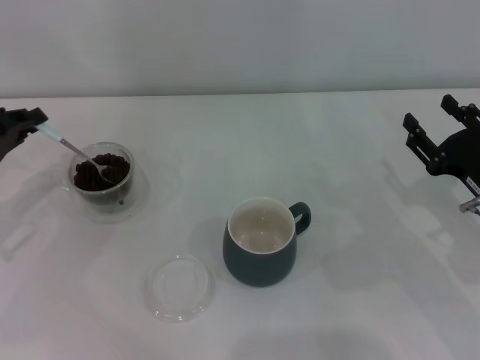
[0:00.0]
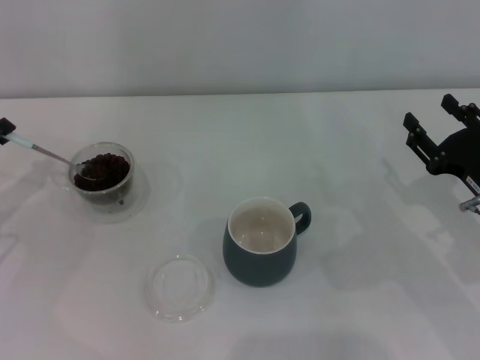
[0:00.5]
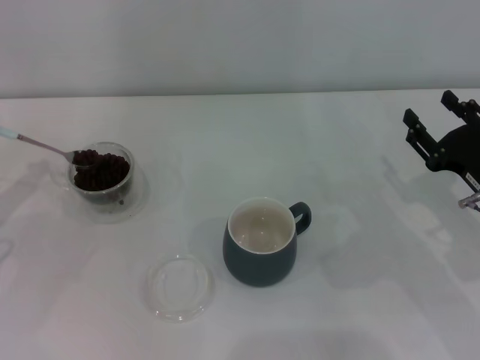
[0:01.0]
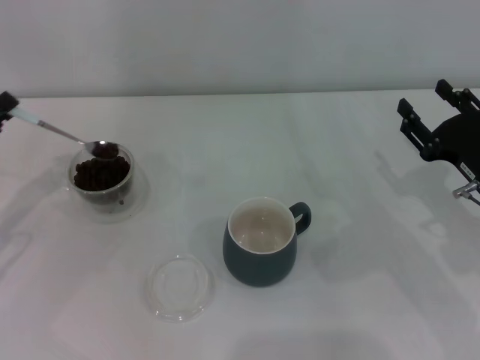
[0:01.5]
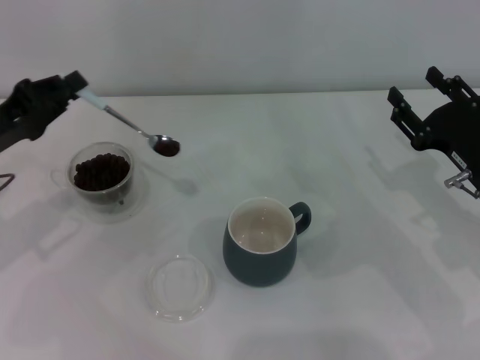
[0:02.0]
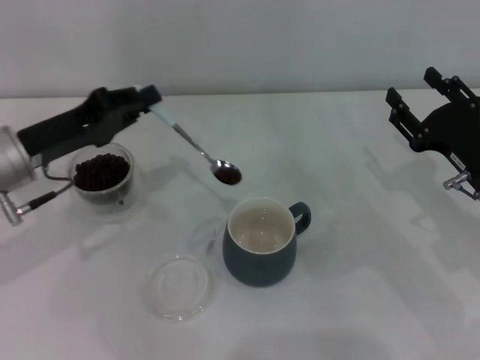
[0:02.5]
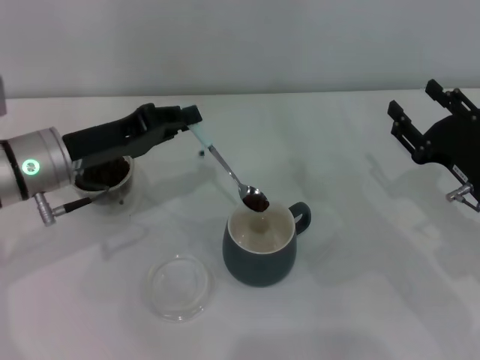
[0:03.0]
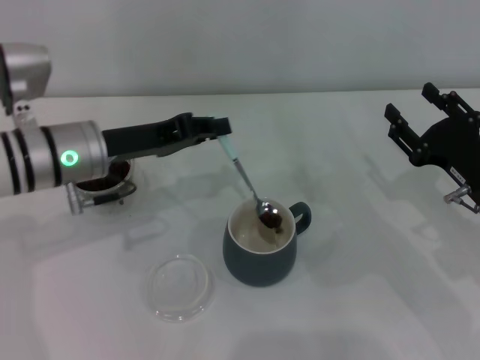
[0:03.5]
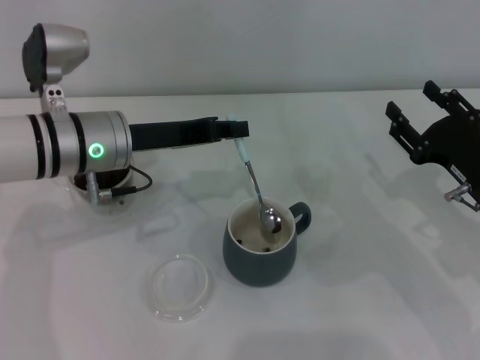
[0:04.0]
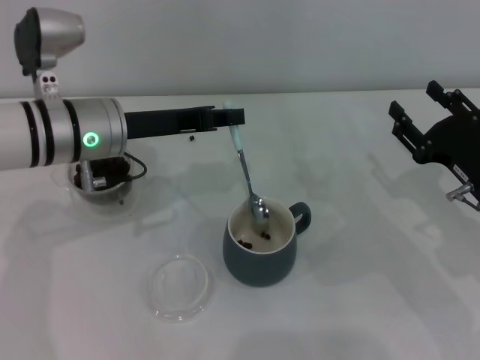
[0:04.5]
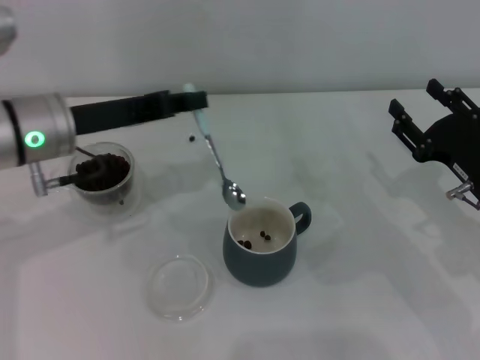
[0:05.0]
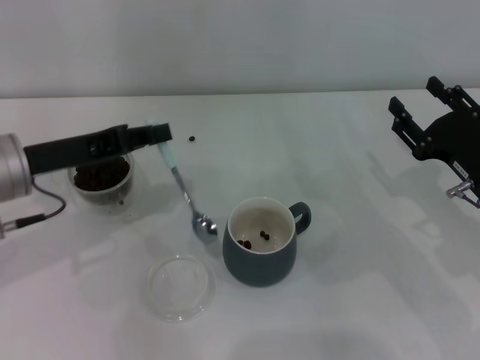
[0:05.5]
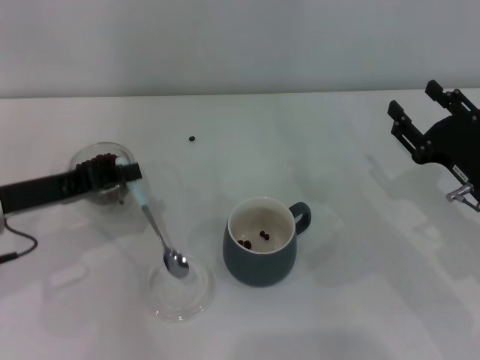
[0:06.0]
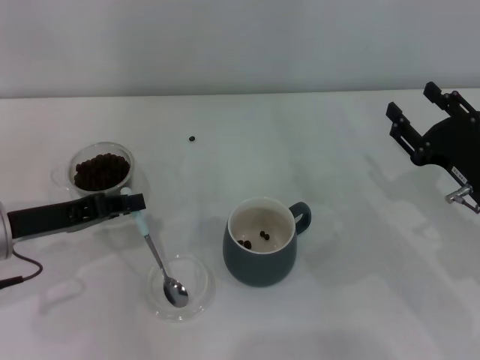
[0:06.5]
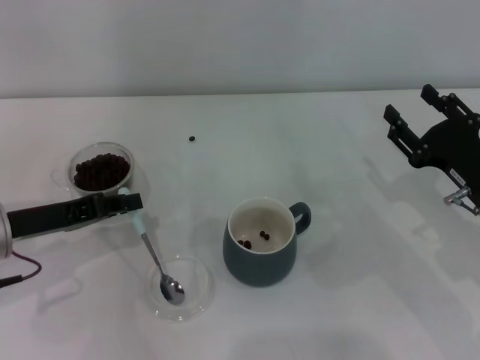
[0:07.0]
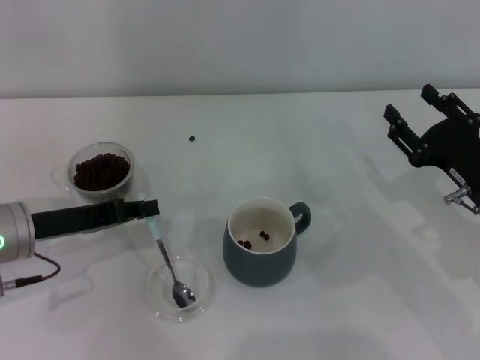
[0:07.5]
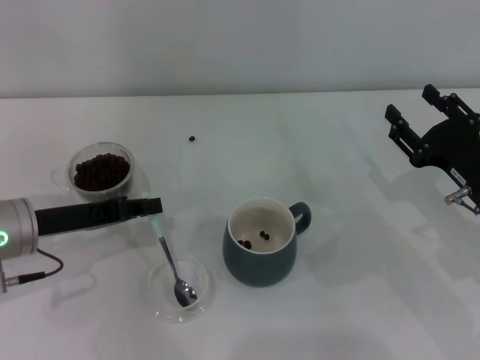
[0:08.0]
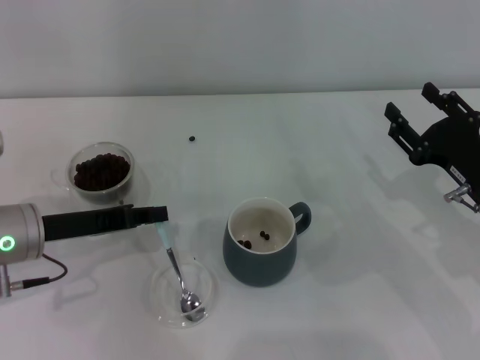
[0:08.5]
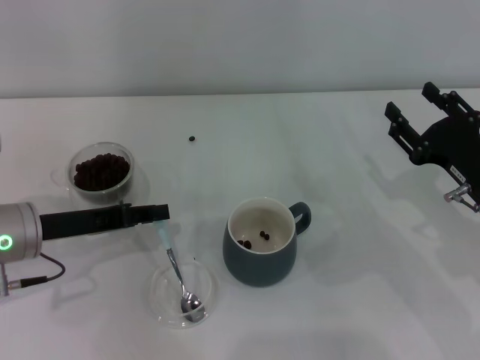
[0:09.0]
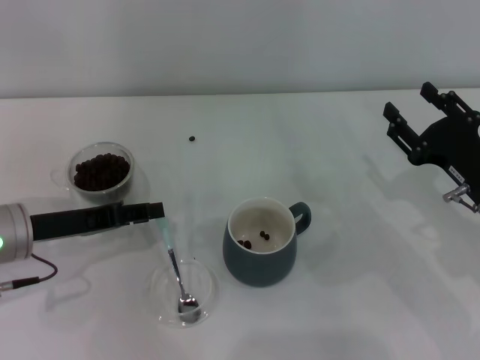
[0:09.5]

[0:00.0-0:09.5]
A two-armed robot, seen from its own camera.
Task of the whole recording: Use a blue spoon to take out the coffee beans from the glass and pour them into the gray cup.
Step, 0:00.0 to 0:04.5: Scoop a spoonful of beans into the cup with the right gripper.
0:00.0 to 0:02.0: The grippers make only small movements.
0:02.0 to 0:04.0: The left gripper is displaced to the right by some 15 cm.
0:04.0 to 0:05.5: The left gripper travels to the left by approximately 10 cm.
0:05.5 to 0:07.5: The left gripper shifts some 5 cm downward.
0:07.5 to 0:09.5: The left gripper opens up.

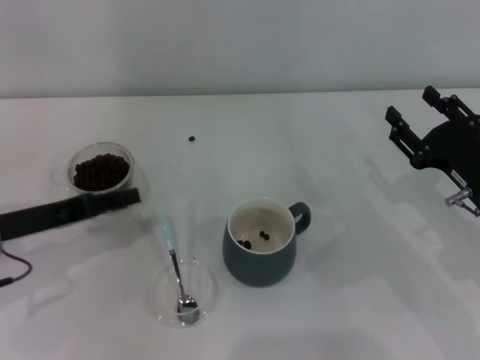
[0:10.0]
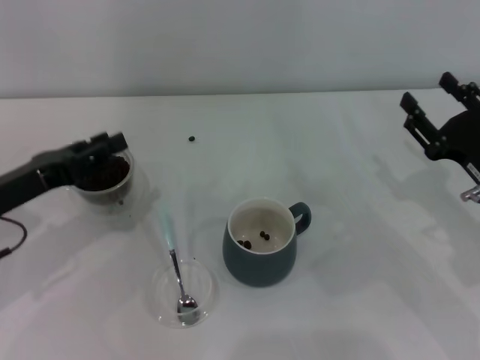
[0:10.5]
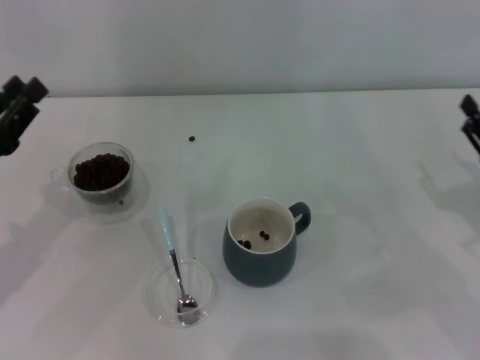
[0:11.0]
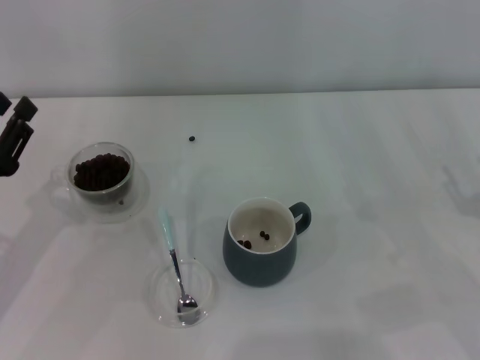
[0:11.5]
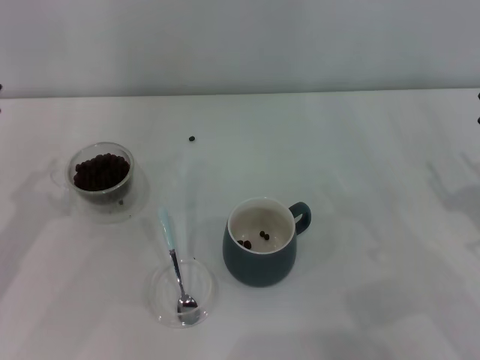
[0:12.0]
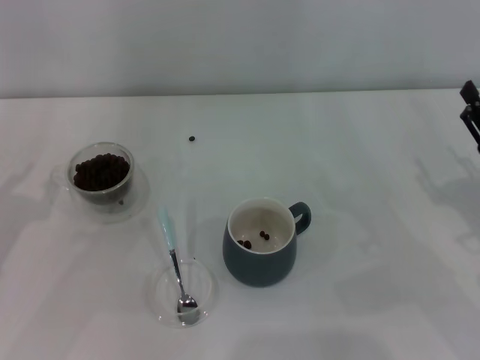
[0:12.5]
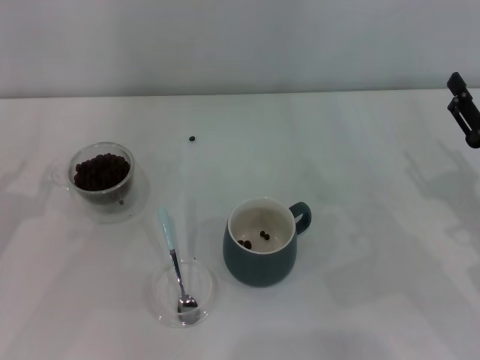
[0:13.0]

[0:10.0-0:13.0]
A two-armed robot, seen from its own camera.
Task of the whole recording: Use a blue spoon to take out the coffee beans from the glass and pour them into the gray cup.
0:10.0 to 0:11.5: The right gripper travels backward and to the right by approximately 10 cm.
0:11.5 to 0:13.0: The grippers stay close to where they were, moving slightly.

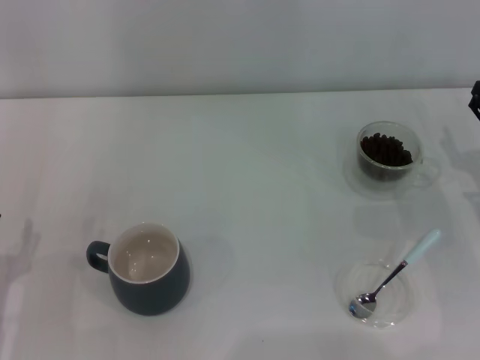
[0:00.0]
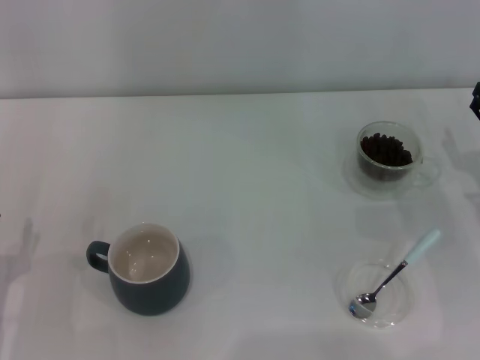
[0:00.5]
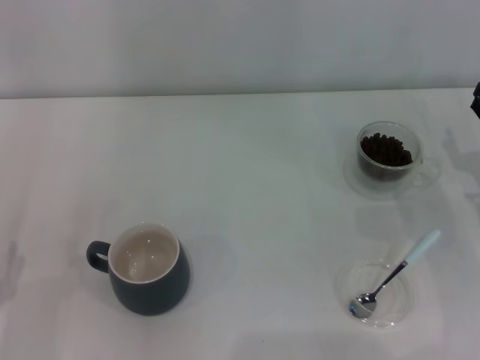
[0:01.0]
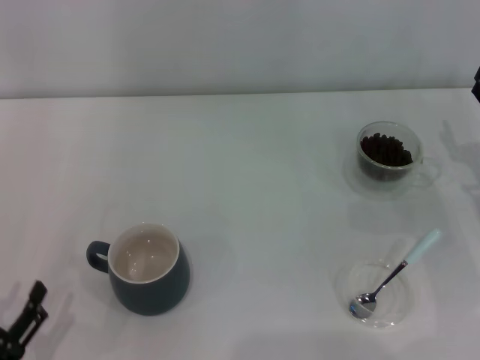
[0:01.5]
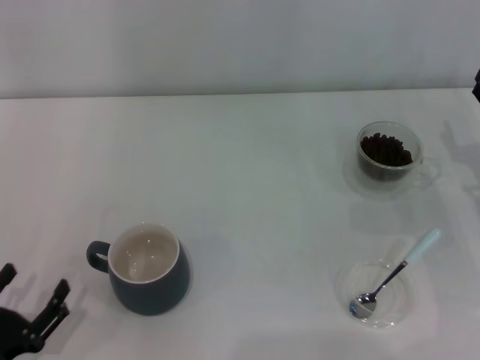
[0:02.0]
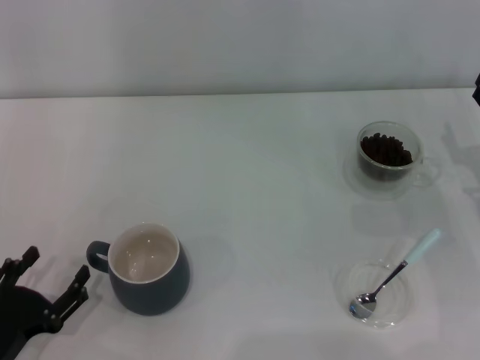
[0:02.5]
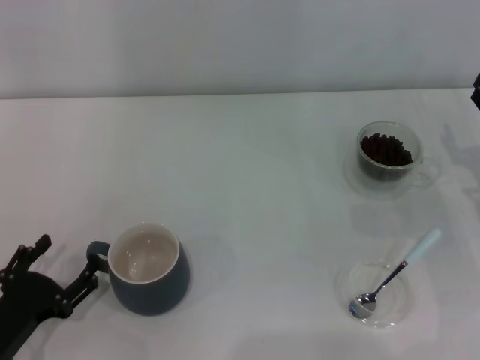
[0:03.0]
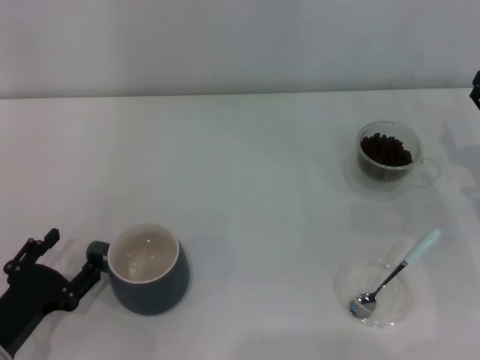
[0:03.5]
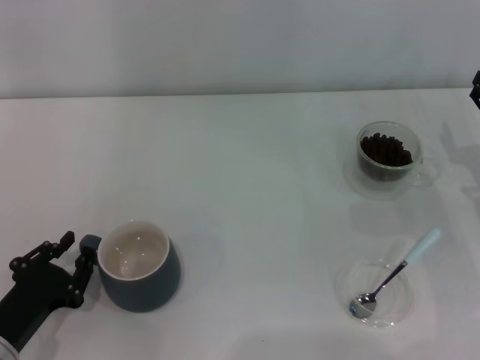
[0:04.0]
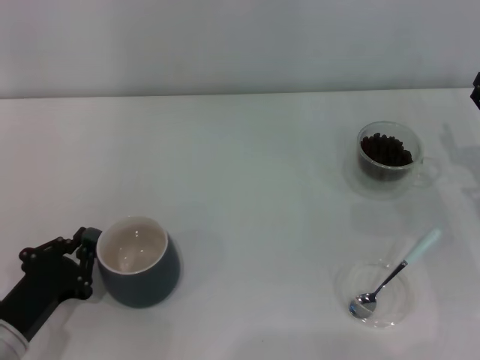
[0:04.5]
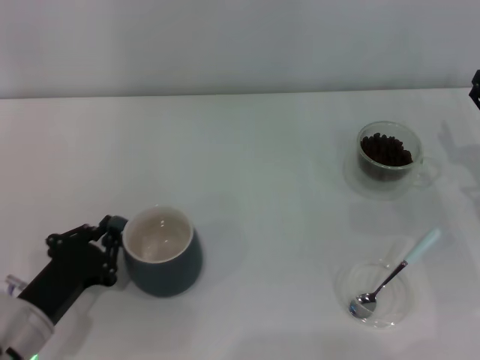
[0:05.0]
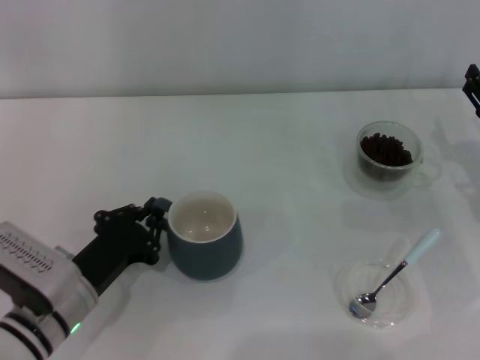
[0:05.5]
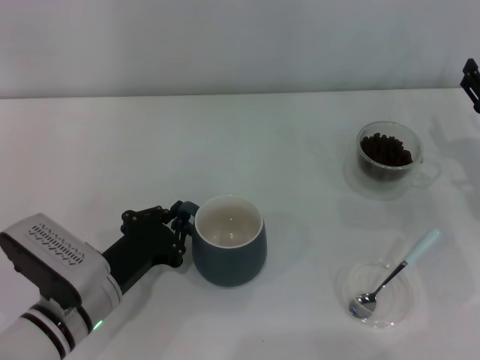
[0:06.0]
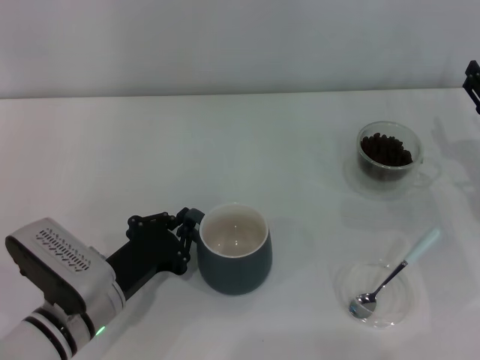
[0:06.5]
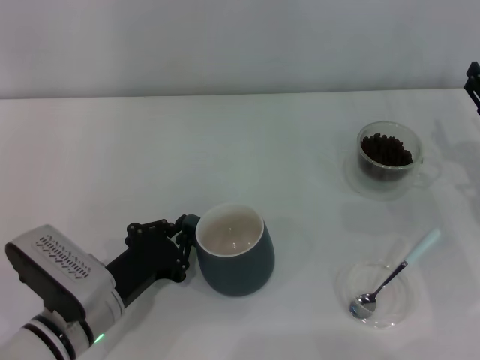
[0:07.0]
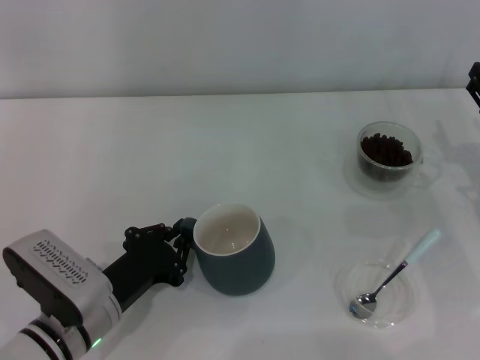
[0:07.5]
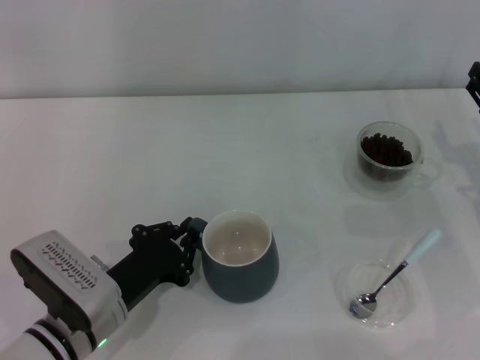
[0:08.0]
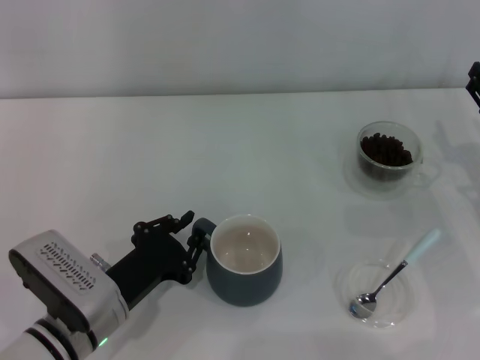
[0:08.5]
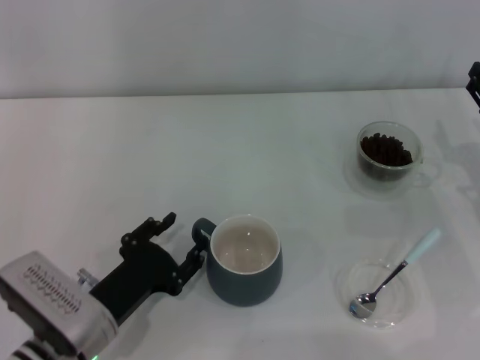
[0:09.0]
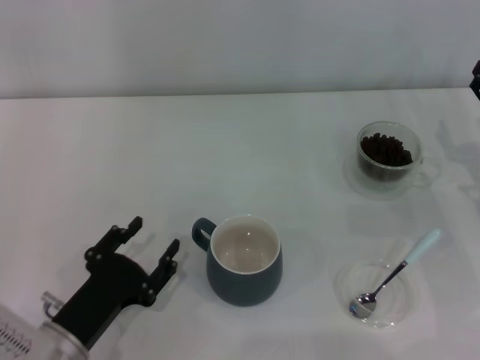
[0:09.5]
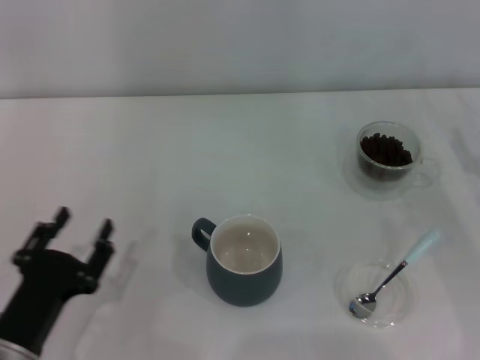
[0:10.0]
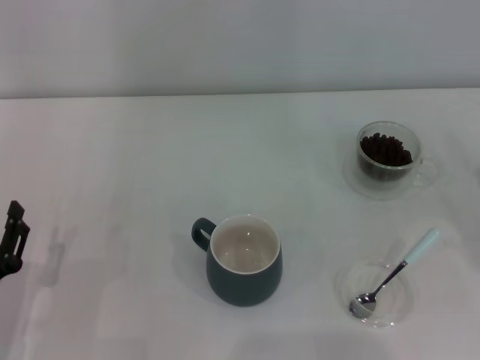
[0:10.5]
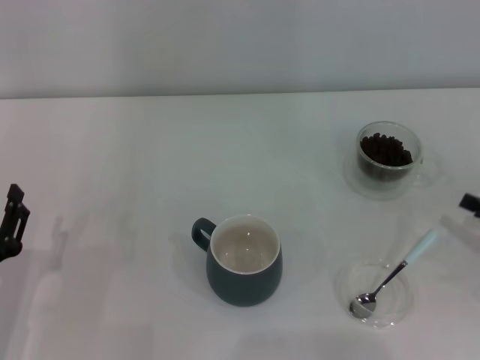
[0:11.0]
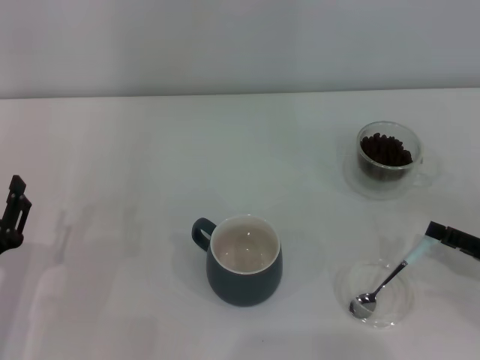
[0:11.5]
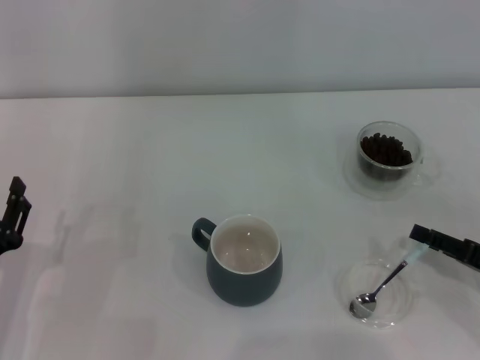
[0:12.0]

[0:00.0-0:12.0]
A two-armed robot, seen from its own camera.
Task of the whole recording: Use a blue spoon to take out the coffee beans from the glass and pour them into the gray cup.
Step, 0:00.0 to 0:09.0: Move the cup to the center of view with the left gripper.
0:00.0 to 0:02.0: The left gripper is displaced backward by about 5 cm.
0:02.0 to 0:04.0: The left gripper travels forward by approximately 5 cm, and closes.
0:04.0 to 0:06.0: The left gripper shifts some 10 cm to the right and forward, and closes up.
0:06.0 to 0:08.0: There are only small adjustments of the grippers.
0:08.0 to 0:10.0: The left gripper goes some 10 cm backward and to the left, and opens up.
0:10.0 to 0:12.0: The right gripper shifts some 10 cm backward; the left gripper moves about 5 cm.

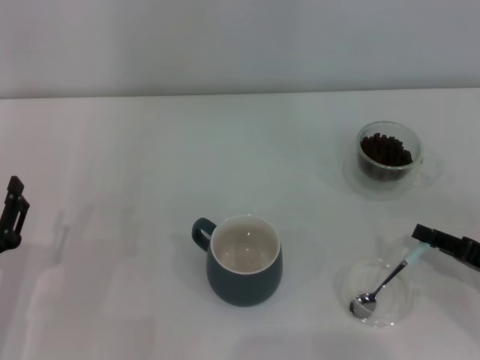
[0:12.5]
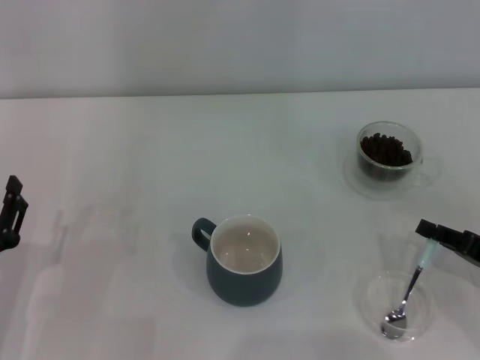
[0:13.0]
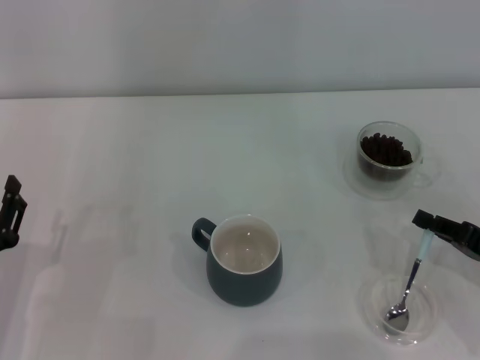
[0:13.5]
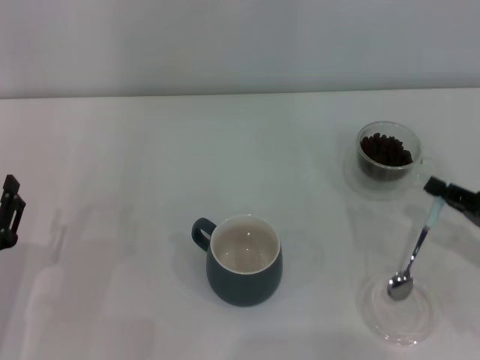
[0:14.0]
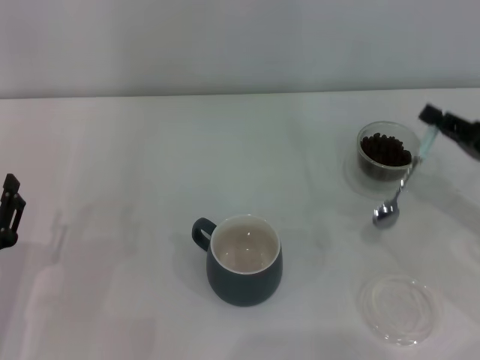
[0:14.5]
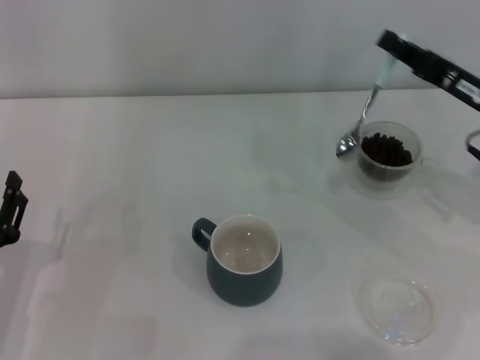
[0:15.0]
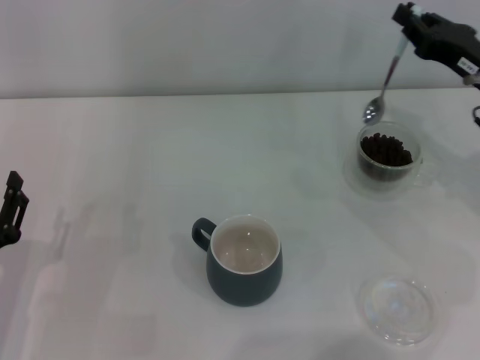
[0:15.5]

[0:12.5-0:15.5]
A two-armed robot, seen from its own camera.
Task of the whole recording: Use a blue spoon to take out the coffee beans from the glass and pour them into the gray cup.
0:12.5 to 0:14.0: The right gripper closes up.
0:14.0 to 0:15.5: The right gripper heads forward and upward, covering about 15 cm.
